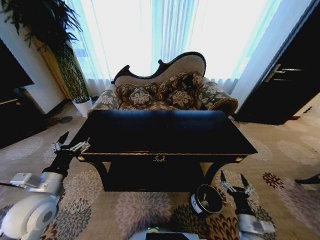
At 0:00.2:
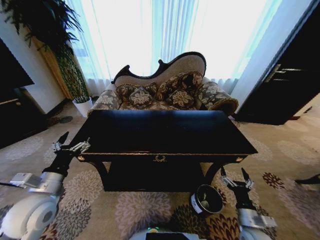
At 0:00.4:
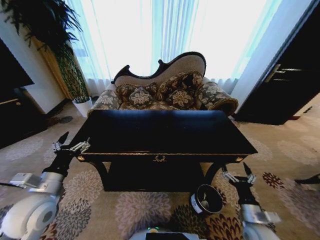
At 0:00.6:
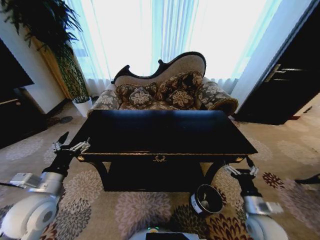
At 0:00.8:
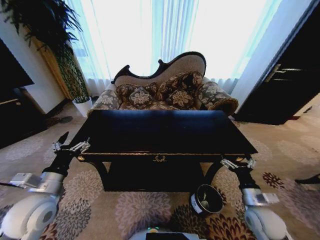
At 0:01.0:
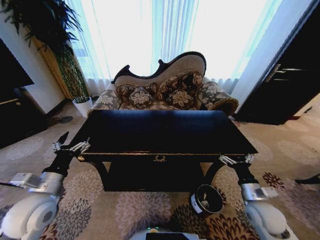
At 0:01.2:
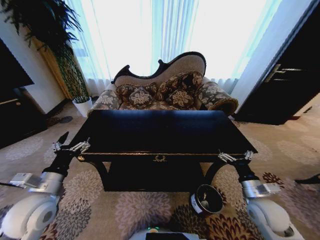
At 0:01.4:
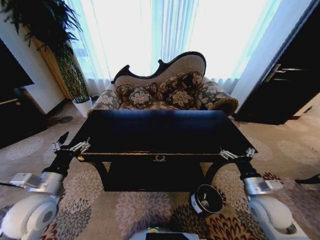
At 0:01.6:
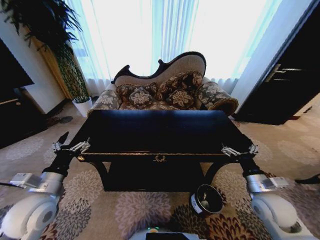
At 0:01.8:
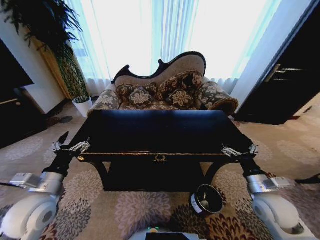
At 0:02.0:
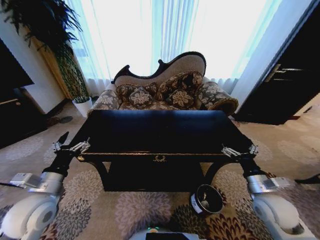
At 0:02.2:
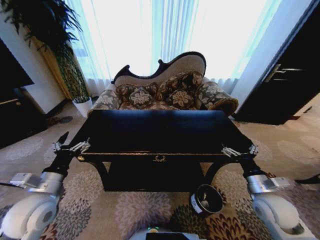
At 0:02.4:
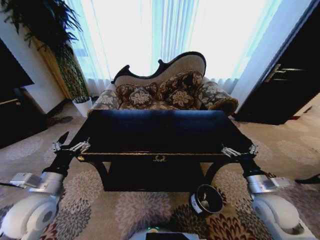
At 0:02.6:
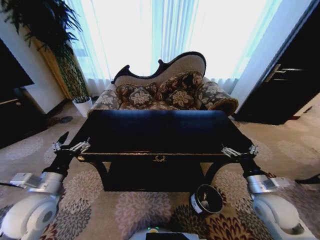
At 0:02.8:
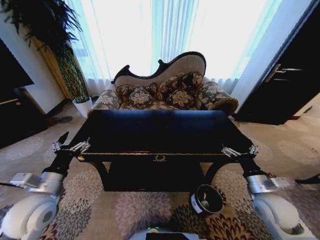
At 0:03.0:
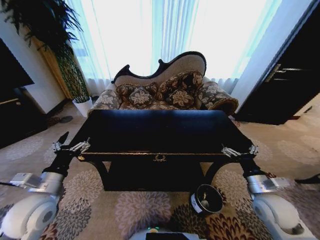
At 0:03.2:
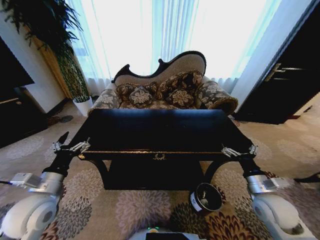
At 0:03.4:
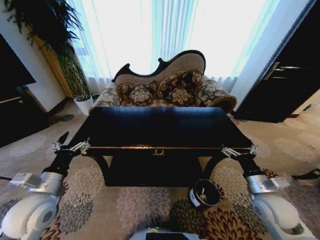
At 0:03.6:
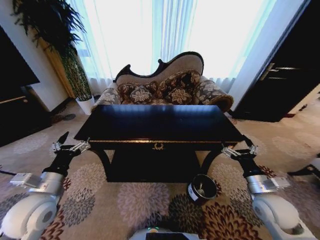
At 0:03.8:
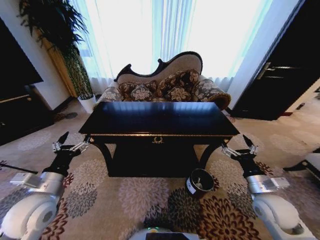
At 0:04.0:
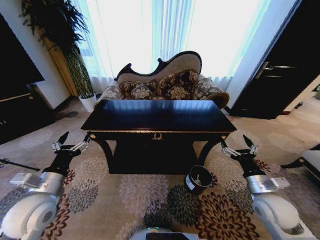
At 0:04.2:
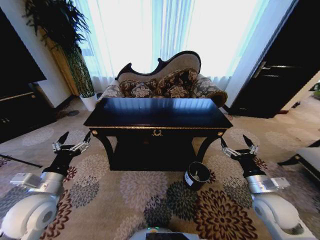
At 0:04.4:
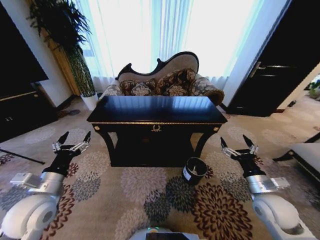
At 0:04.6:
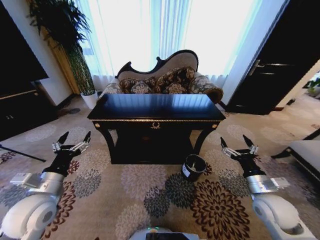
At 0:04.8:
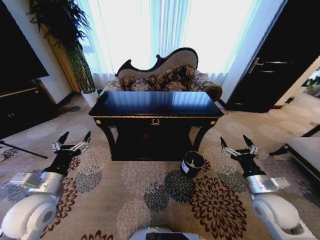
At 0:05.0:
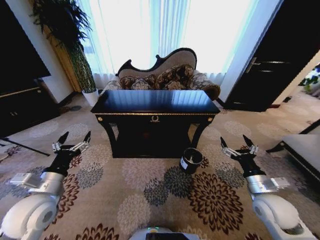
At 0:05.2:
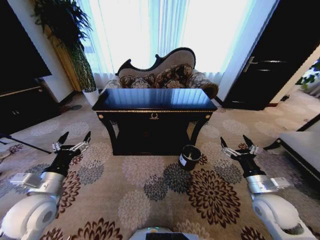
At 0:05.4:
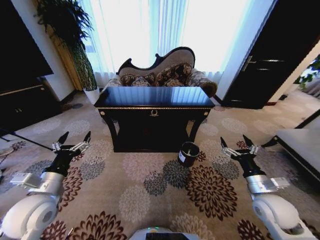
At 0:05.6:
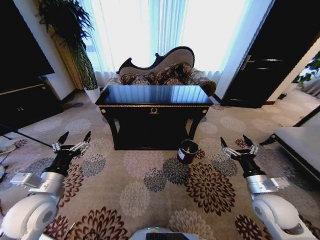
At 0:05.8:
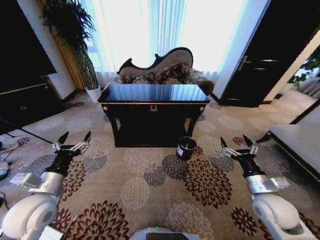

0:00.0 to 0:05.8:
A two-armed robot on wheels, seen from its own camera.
Task of the whole recording: Move to the front of the table and place the trash on the table into the trash bin.
0:00.0 to 0:01.4: The right gripper goes roughly 15 cm upward and forward.
0:01.4 to 0:02.8: The grippers make only small movements.
